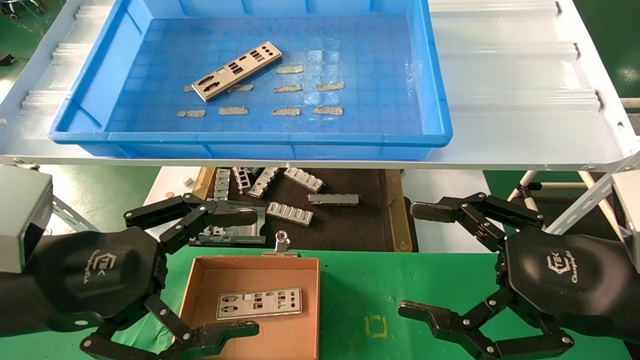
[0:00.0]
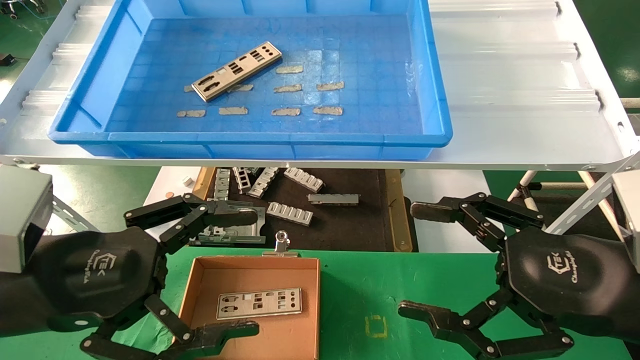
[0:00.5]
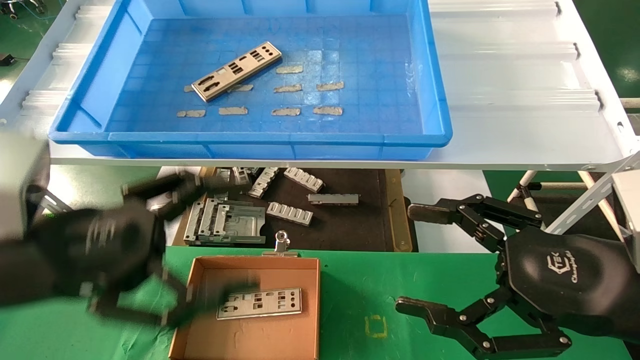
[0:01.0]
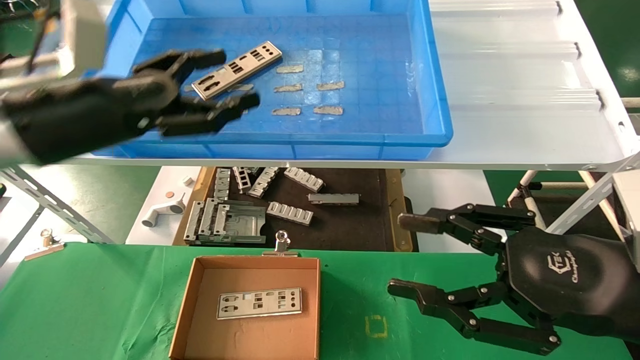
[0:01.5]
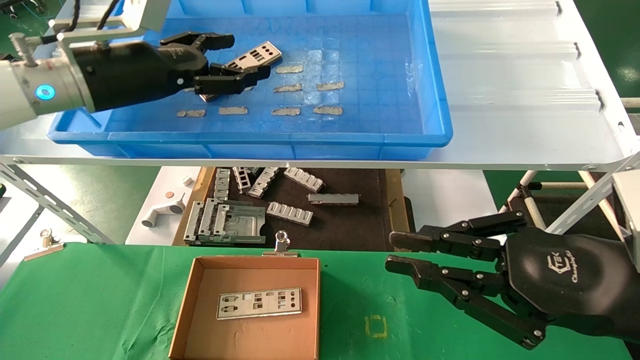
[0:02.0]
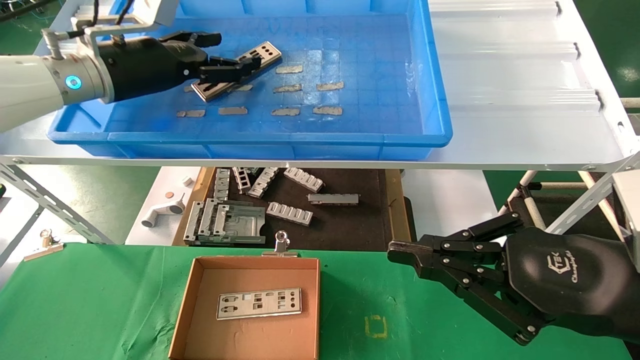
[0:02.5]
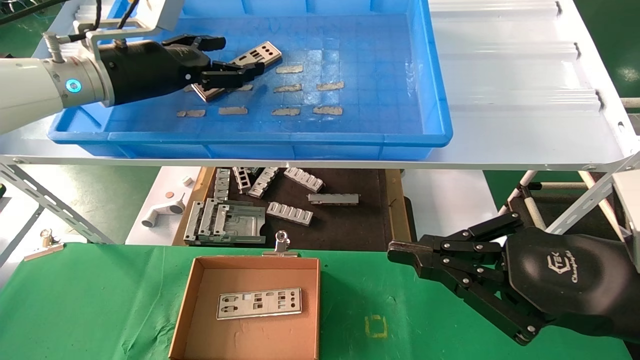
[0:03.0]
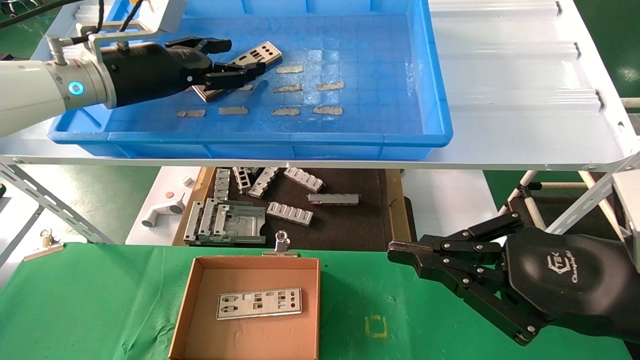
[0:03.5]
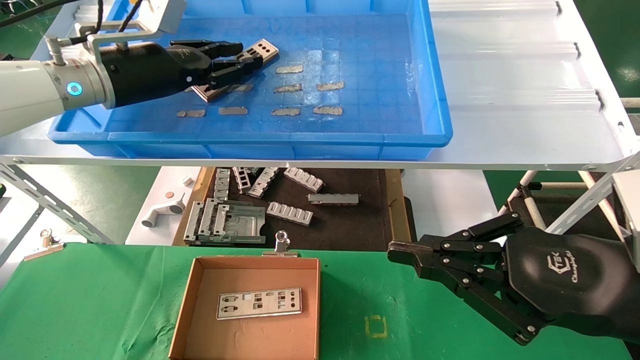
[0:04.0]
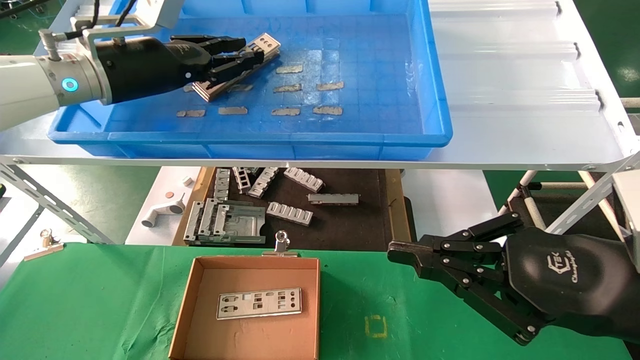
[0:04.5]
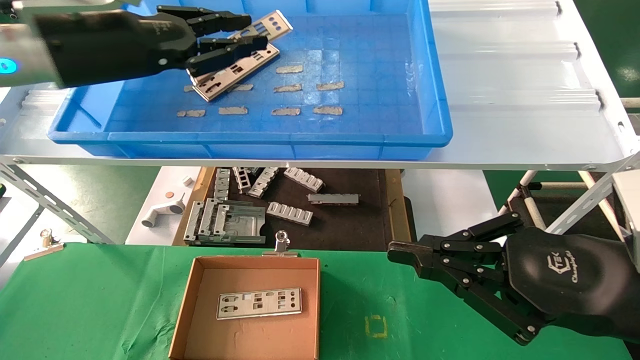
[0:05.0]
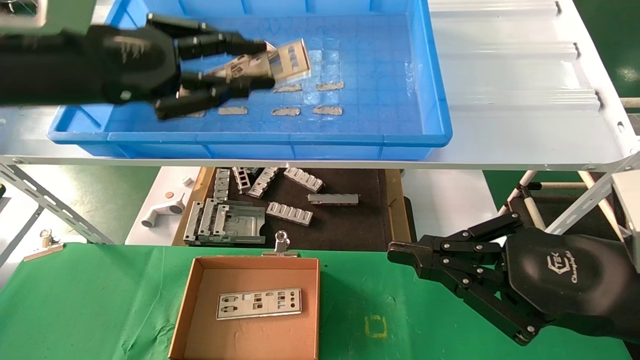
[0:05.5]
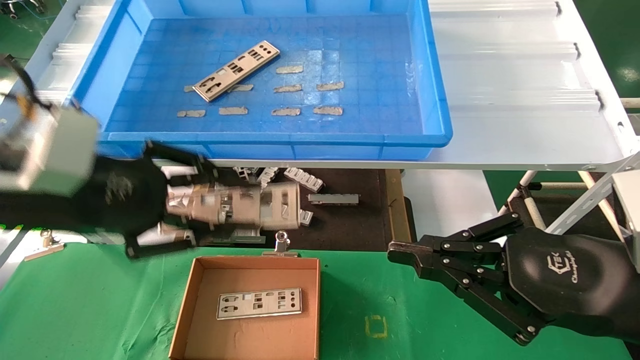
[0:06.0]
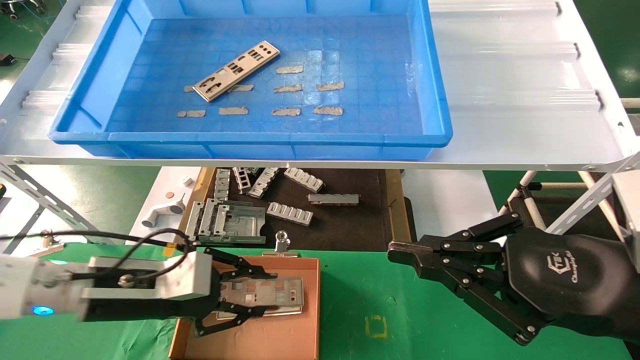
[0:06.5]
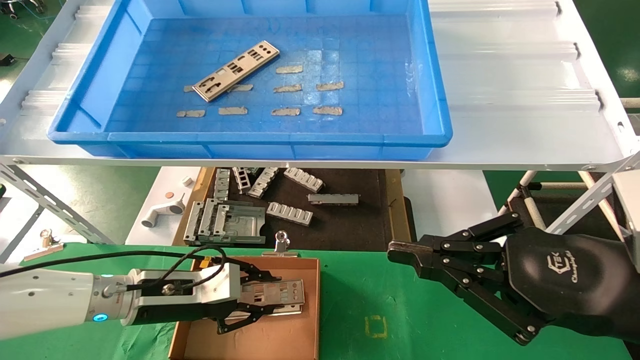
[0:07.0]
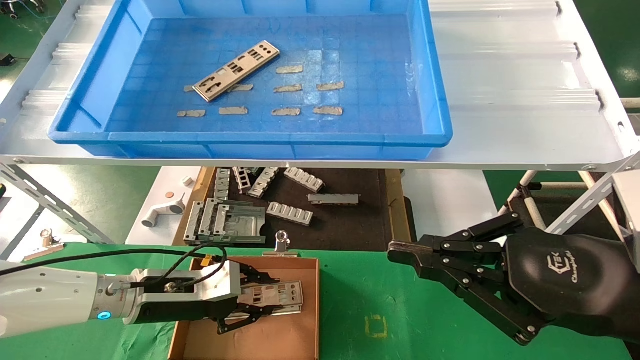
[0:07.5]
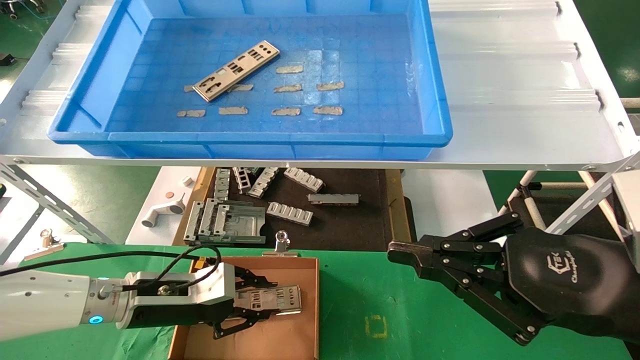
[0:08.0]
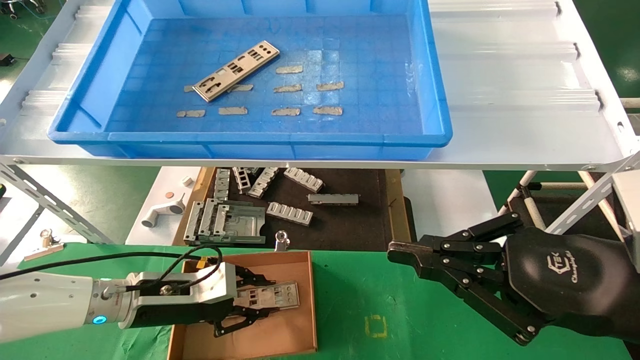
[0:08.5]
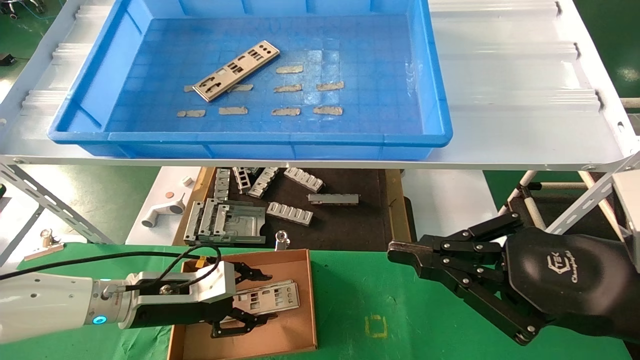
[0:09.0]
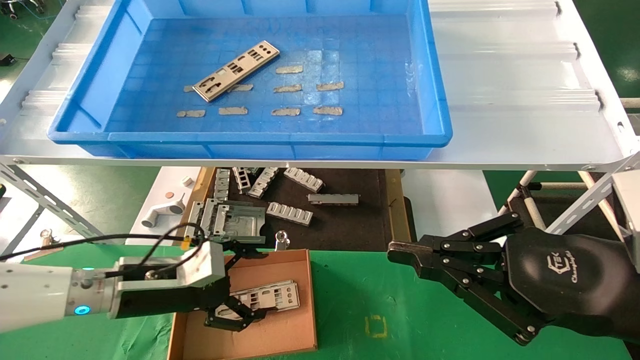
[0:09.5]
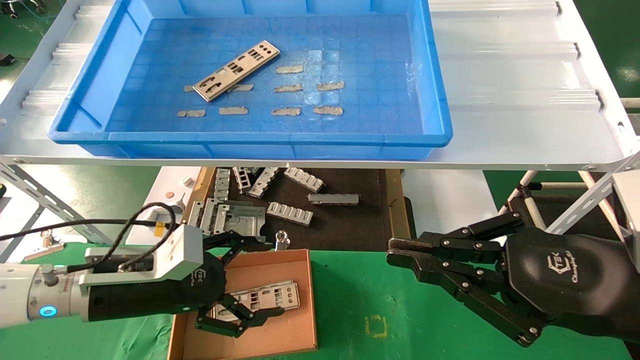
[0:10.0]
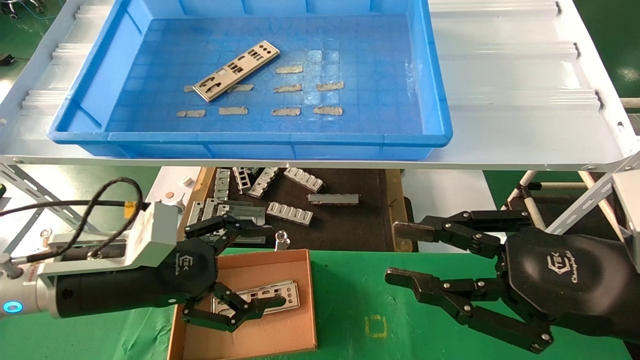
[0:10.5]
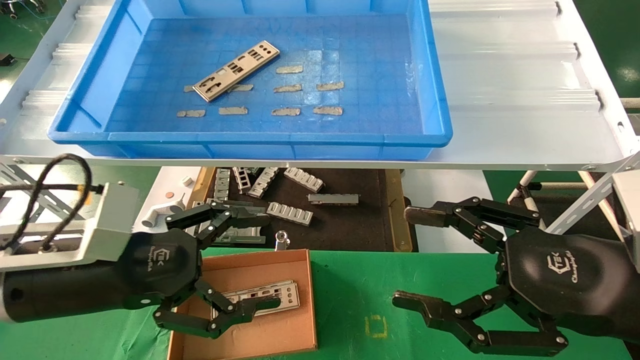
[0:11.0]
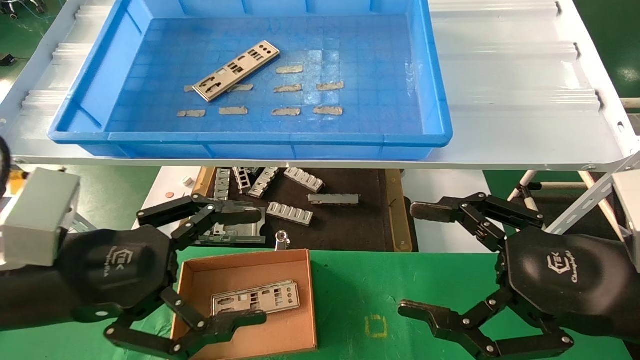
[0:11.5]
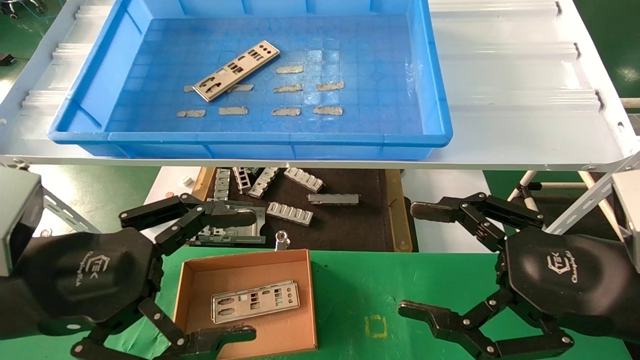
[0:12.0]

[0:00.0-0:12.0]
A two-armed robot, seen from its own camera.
Task of the whole recording: pick up the parts on the tray and put them in the cardboard box.
Step, 0:01.5 to 0:04.5: Pick up the IO bracket from the container box.
Step, 0:05.0 to 0:08.5: Place the IO bracket into the ingredient slot.
0:00.0 to 0:02.0: The right gripper closes up; the left gripper moves forward and upward, some 25 cm.
0:02.0 to 0:04.0: The left gripper closes its fingers.
0:04.0 to 0:06.0: The left gripper heads backward and downward, covering about 20 cm.
0:06.0 to 0:08.0: The left gripper travels downward and forward by roughly 25 cm.
0:08.0 to 0:10.0: The left gripper is displaced upward by approximately 5 cm, and opens its fingers.
0:10.0 to 0:12.0: The left gripper heads backward and upward, covering roughly 15 cm; the right gripper opens up.

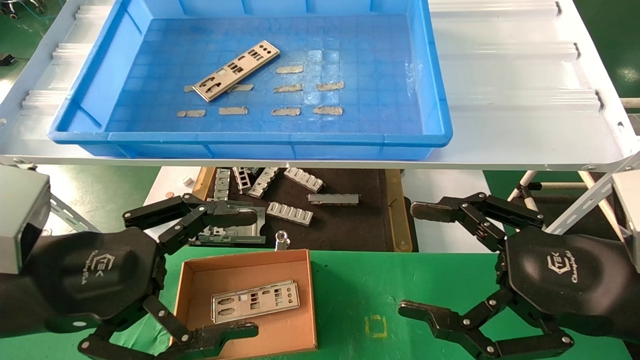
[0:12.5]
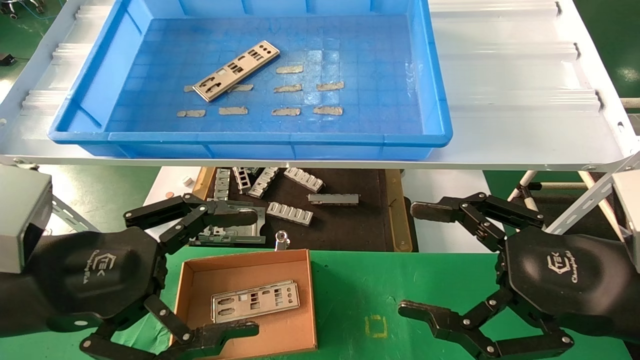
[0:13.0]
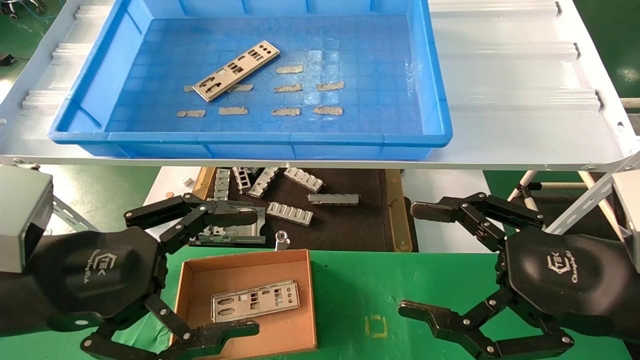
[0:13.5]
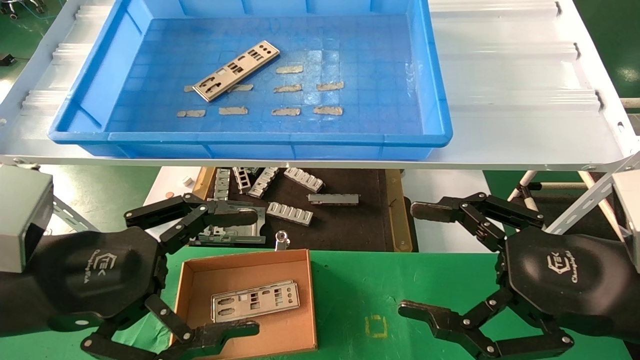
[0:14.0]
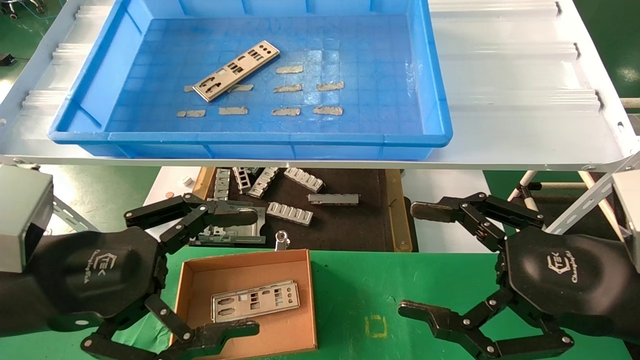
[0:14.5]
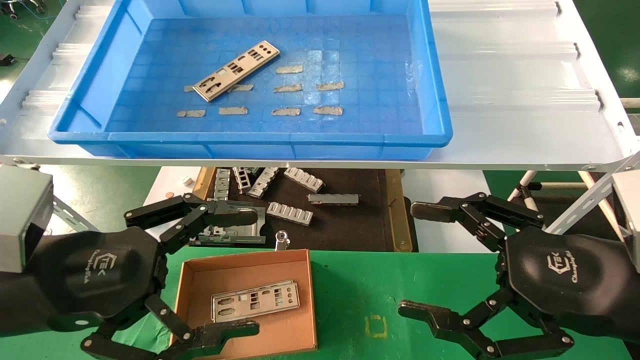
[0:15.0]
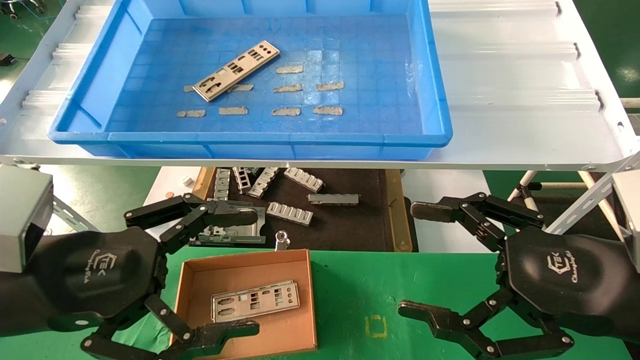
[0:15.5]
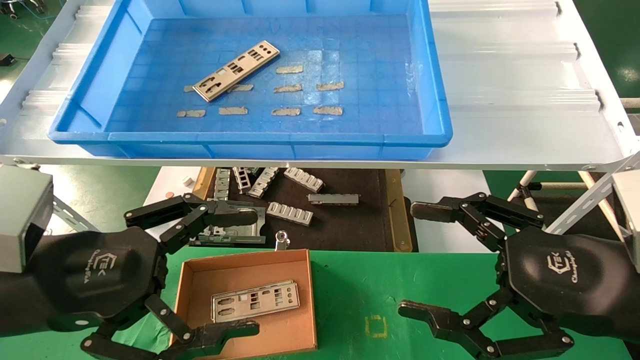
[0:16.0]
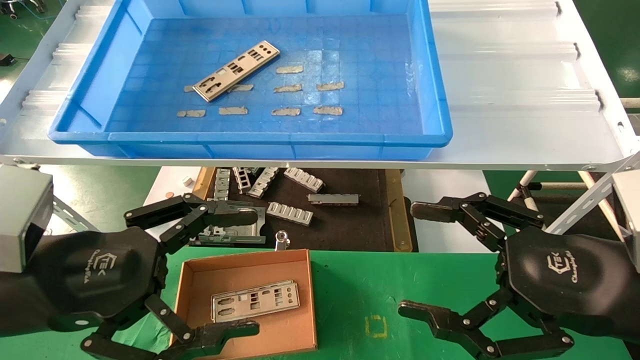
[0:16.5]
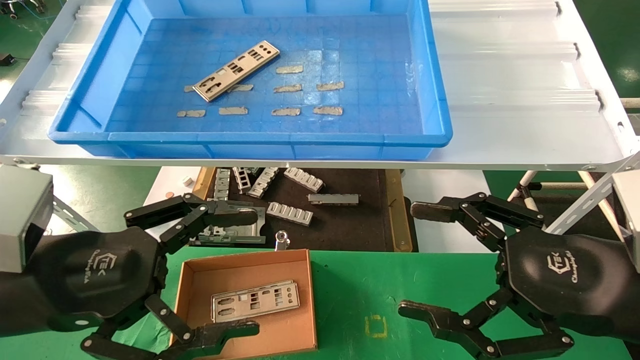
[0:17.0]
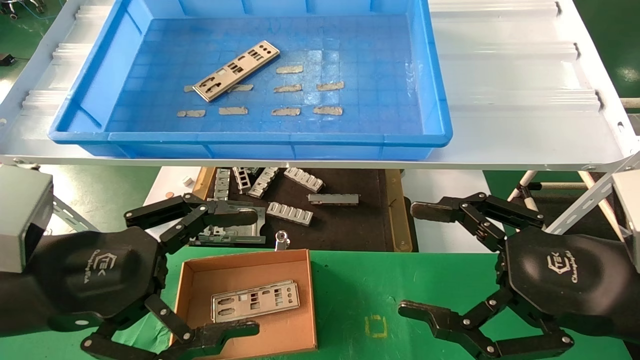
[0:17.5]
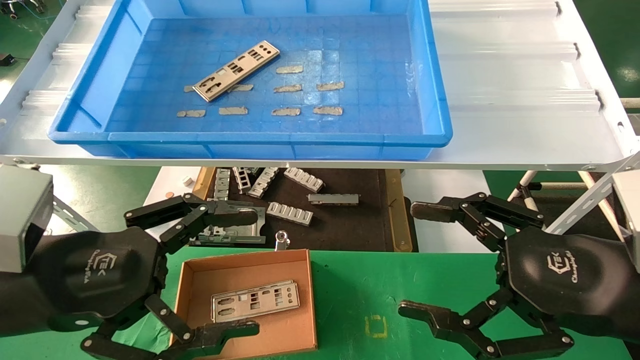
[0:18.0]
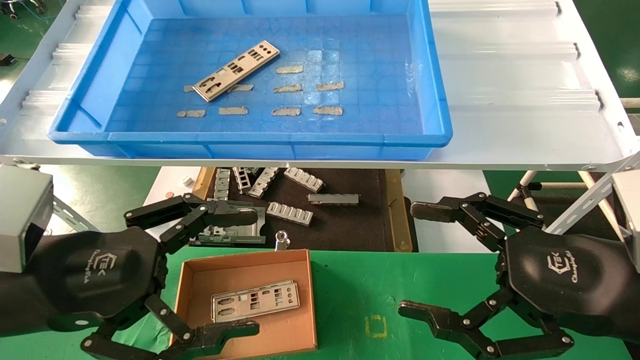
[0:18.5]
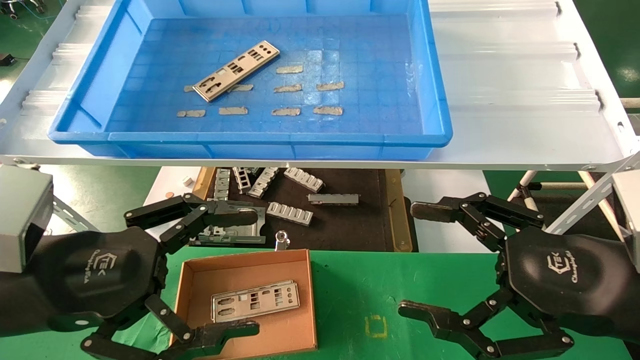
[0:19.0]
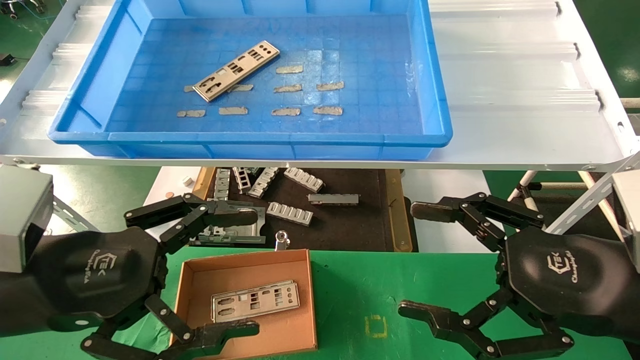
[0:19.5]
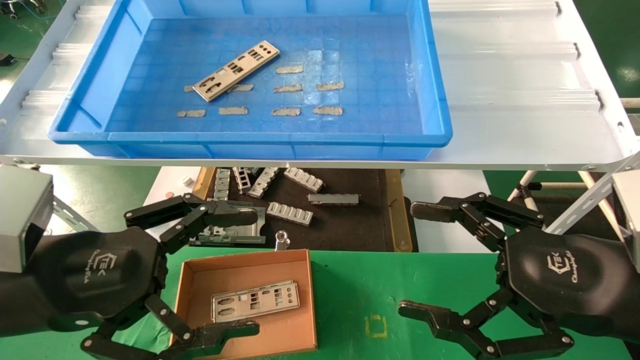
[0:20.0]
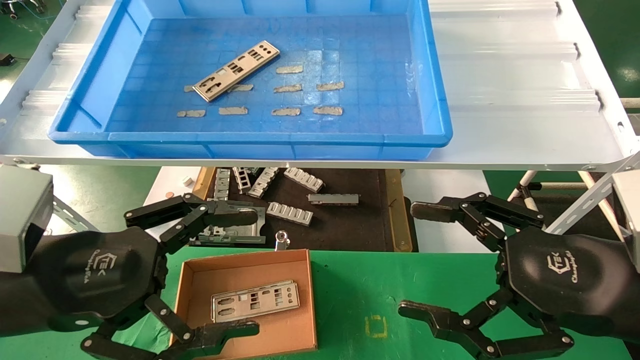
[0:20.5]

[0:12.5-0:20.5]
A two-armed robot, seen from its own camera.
Task of the whole recording: pick up the parts on the tray and put them in the cardboard box.
0:12.5 to 0:20.5: Neither gripper changes place.
